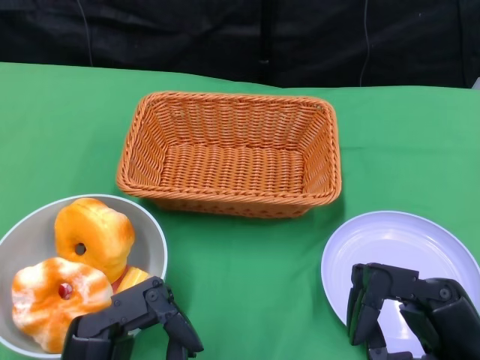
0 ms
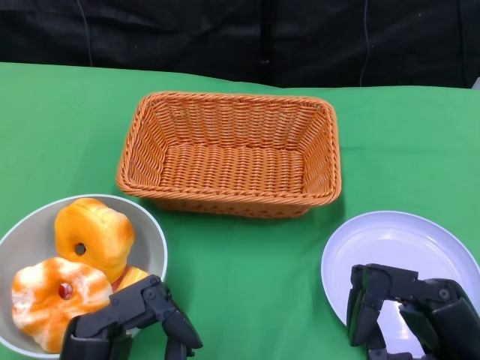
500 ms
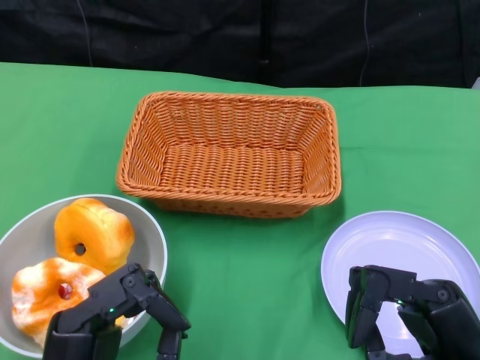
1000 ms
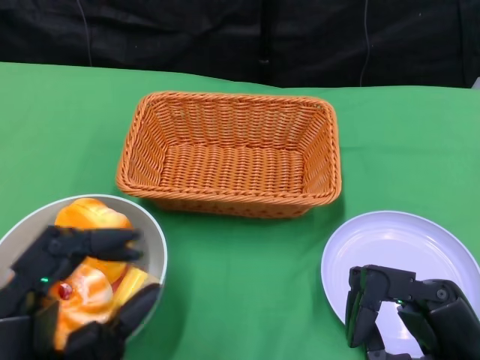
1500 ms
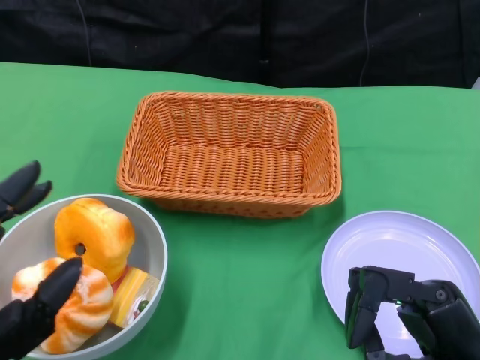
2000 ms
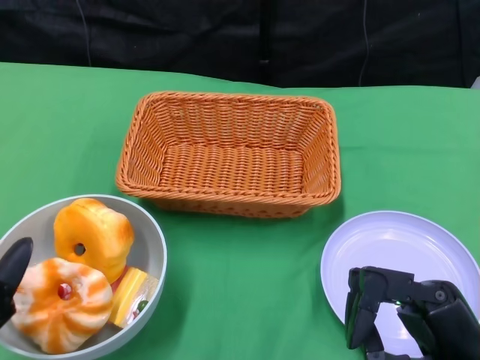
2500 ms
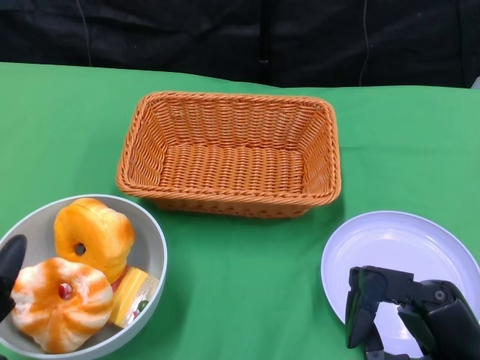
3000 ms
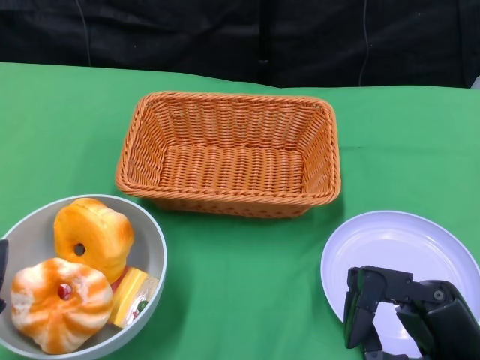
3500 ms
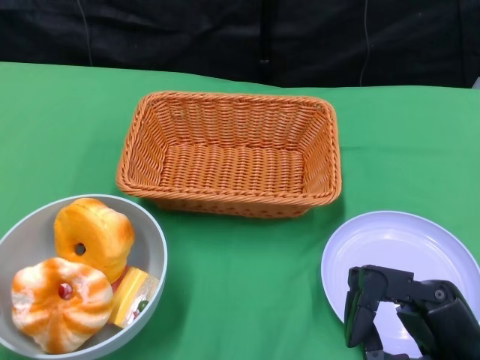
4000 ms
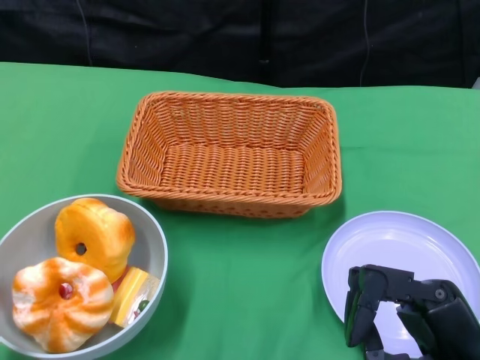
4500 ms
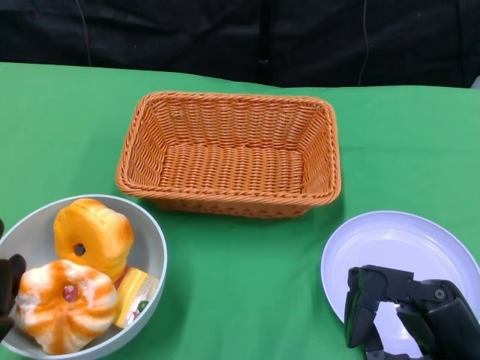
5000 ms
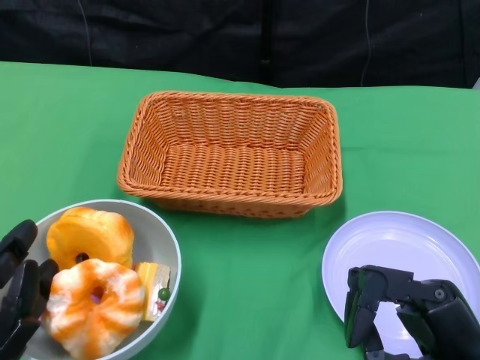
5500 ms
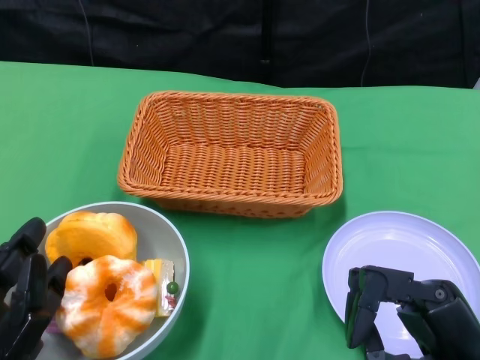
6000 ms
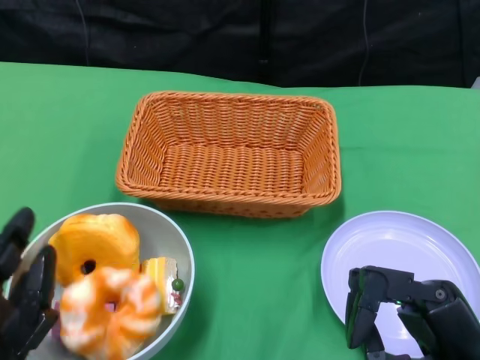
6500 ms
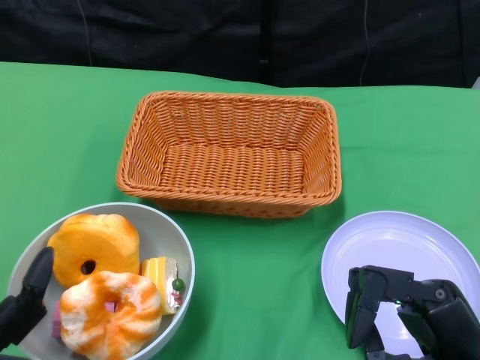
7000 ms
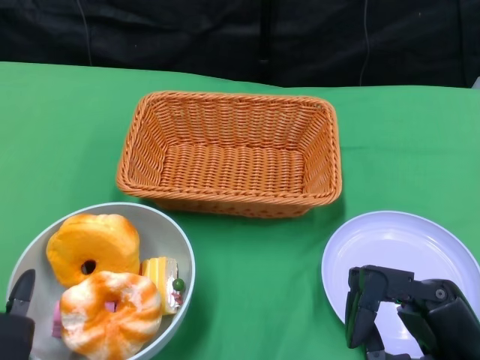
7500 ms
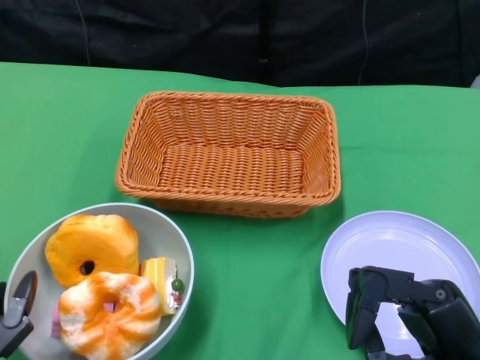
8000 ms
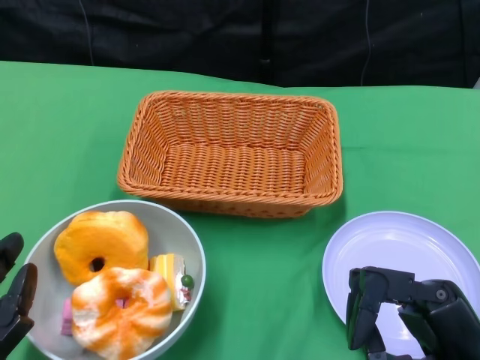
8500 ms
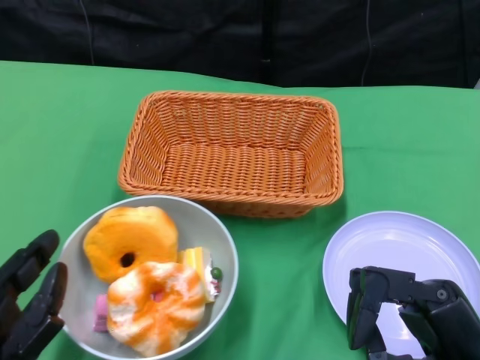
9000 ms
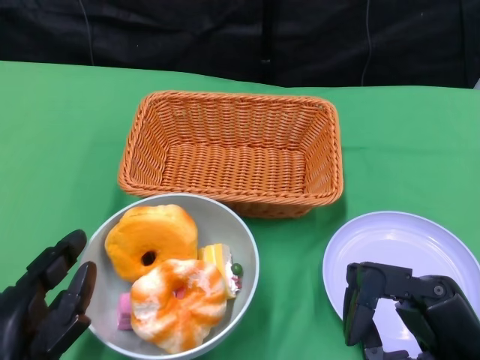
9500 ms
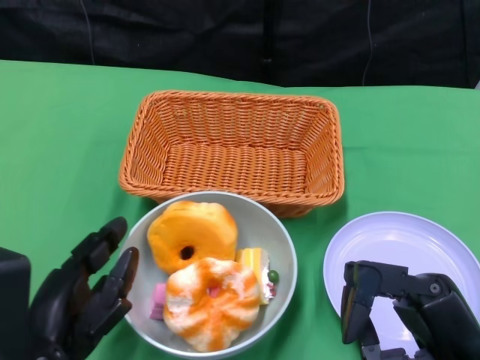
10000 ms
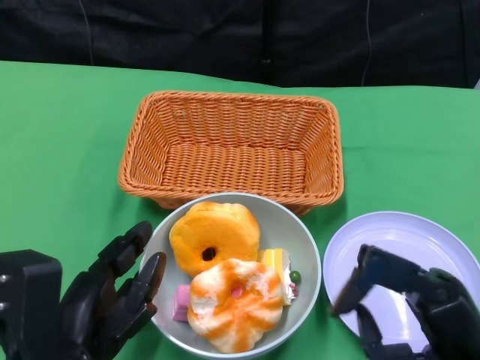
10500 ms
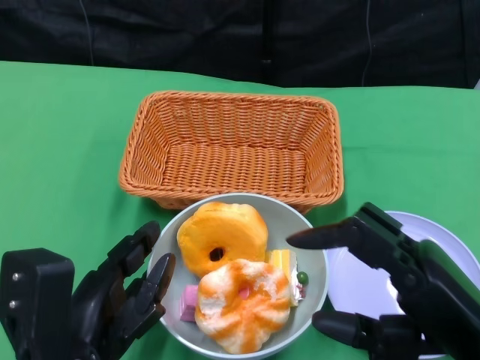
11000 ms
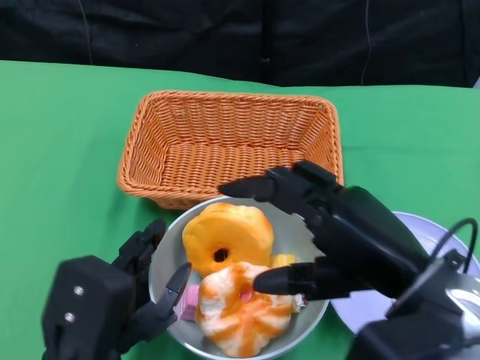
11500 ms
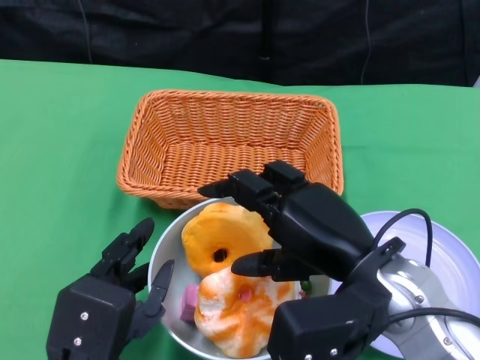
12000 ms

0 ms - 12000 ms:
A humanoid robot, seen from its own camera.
Step, 0 ms - 11000 ms: Push the bowl to the center of the table using the left gripper.
8000 ms - 10000 ms: The left hand goes approximately 5 cm to the right.
10000 ms - 12000 ms: The left hand changes place by some 5 cm, while the right hand goes roughly 10 cm forward, to the left and upward.

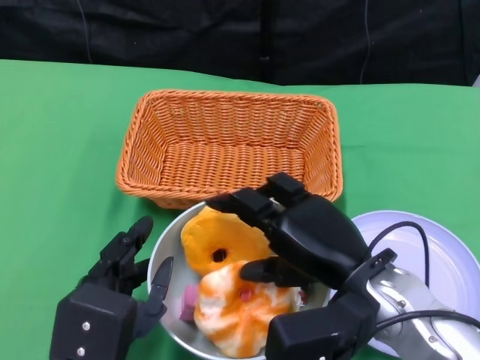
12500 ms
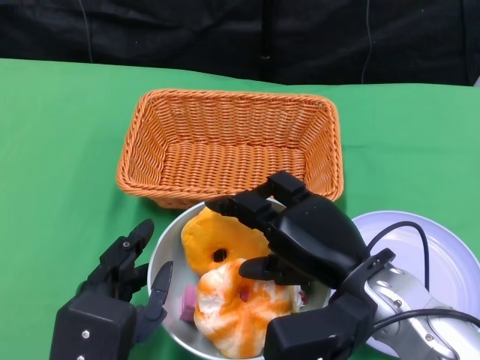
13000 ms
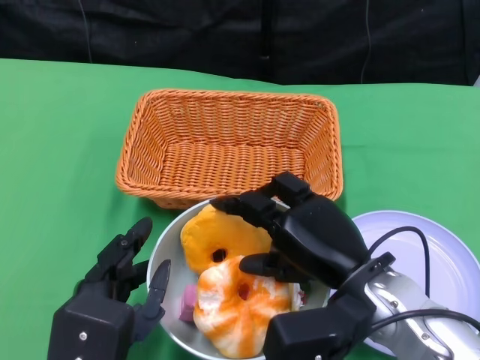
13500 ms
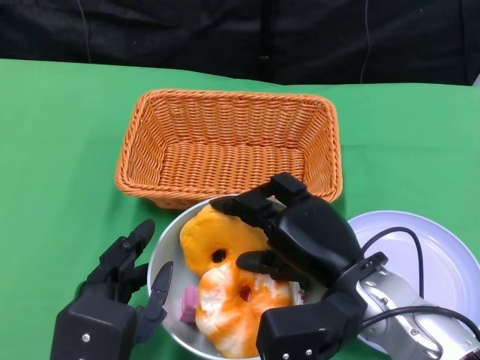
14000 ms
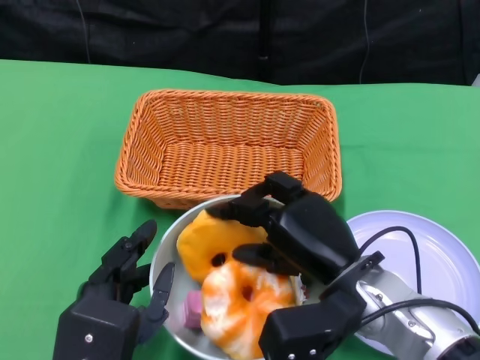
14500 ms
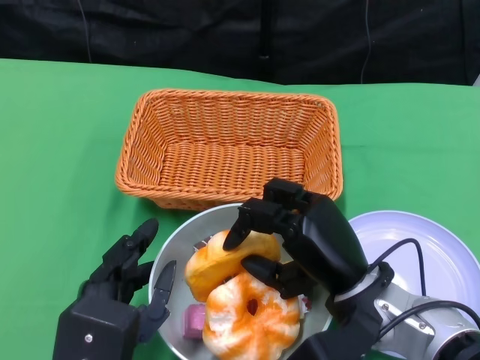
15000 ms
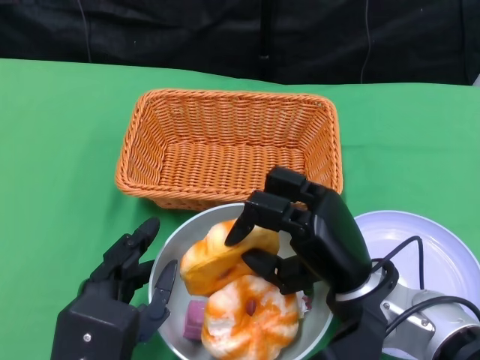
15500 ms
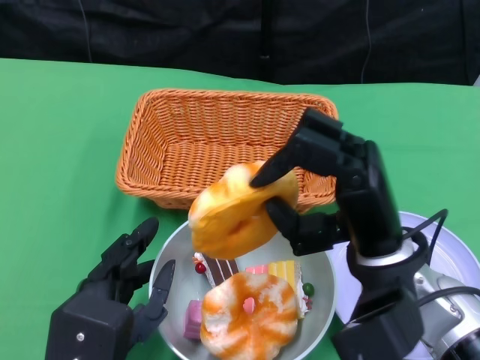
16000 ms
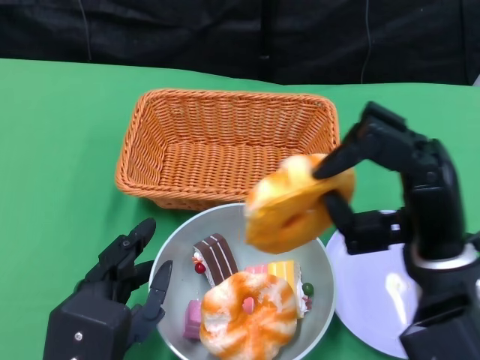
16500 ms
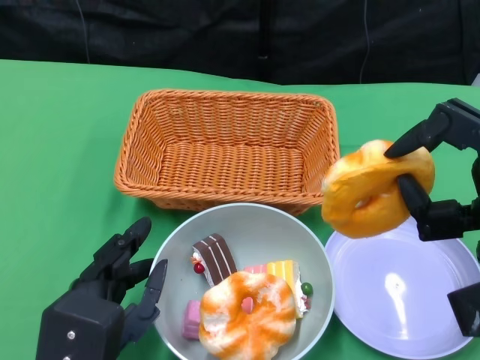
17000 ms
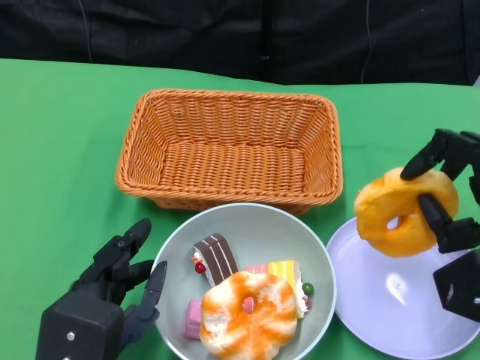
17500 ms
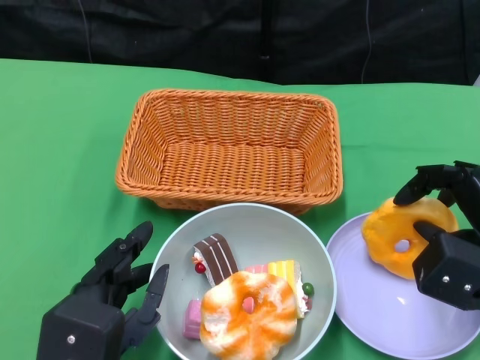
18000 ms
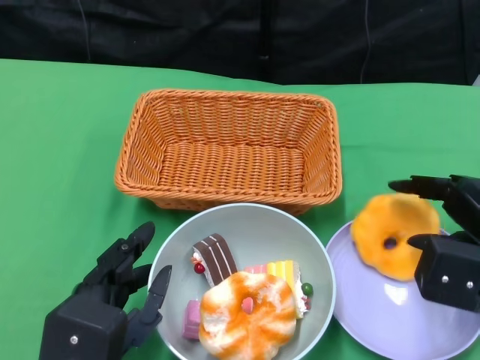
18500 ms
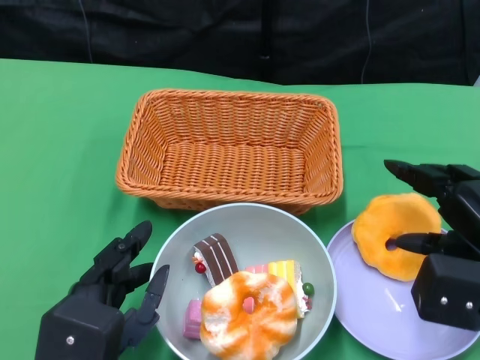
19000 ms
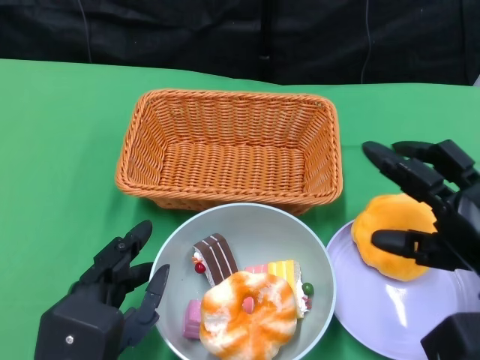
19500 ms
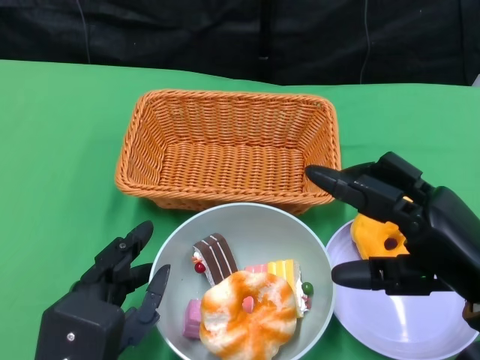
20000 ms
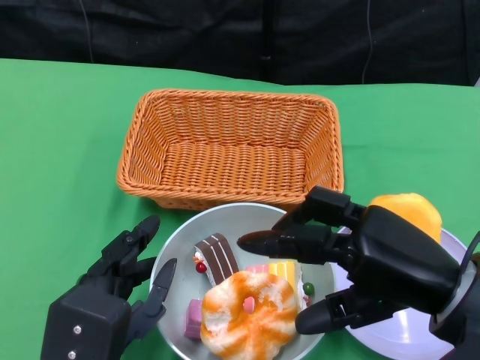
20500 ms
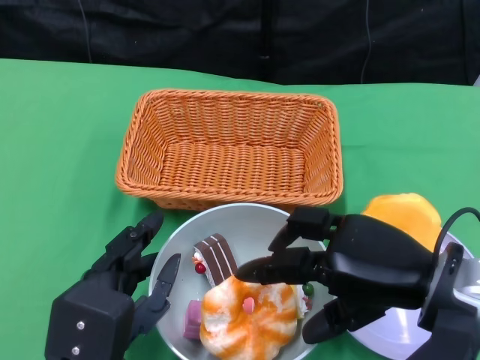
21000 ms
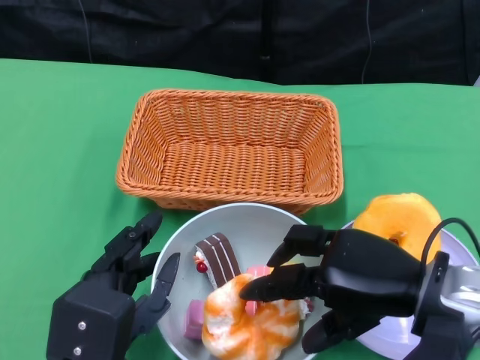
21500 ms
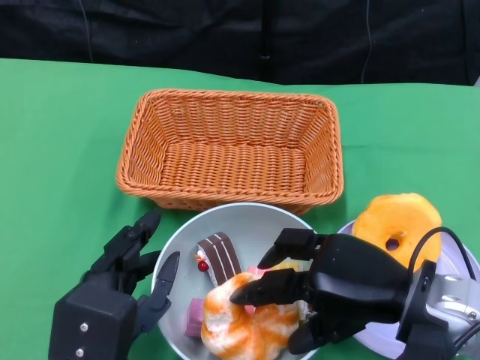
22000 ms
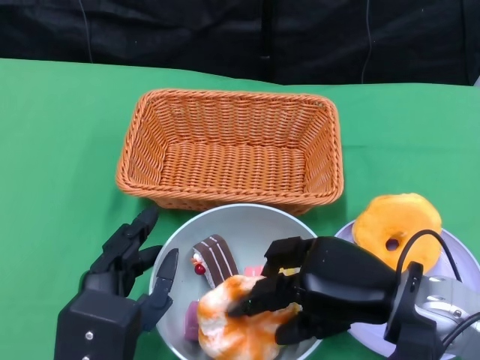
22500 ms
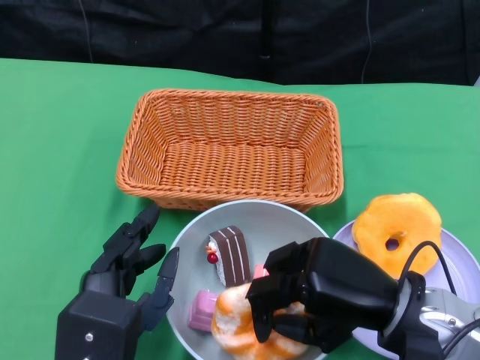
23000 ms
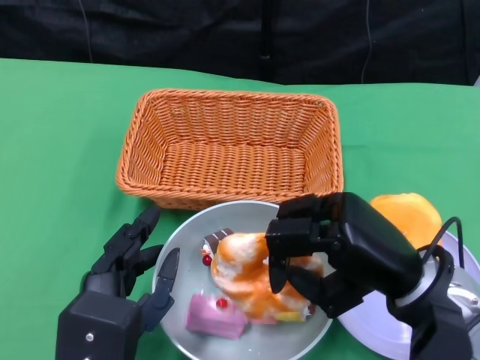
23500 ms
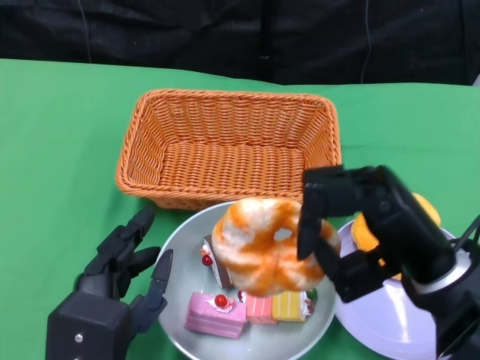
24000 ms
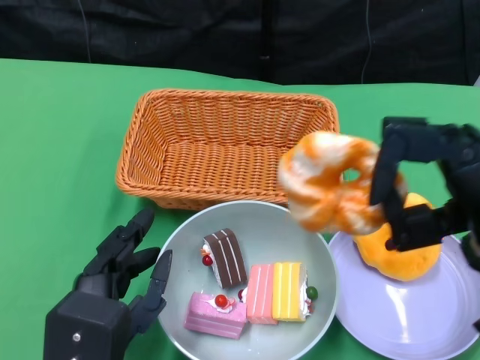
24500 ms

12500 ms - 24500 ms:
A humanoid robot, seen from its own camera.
12500 ms - 14500 ms: The hands move only a little.
14500 ms - 16500 ms: The right hand is displaced to the right by about 5 cm.
16500 ms - 18500 ms: The right hand travels to the right by some 10 cm.
18500 ms - 20500 ms: The right hand shifts approximately 5 cm to the left.
20500 ms - 22500 ms: The right hand ends up some 5 cm from where it was.
22500 ms - 24500 ms: The right hand travels upward and to the right by roughly 10 cm.

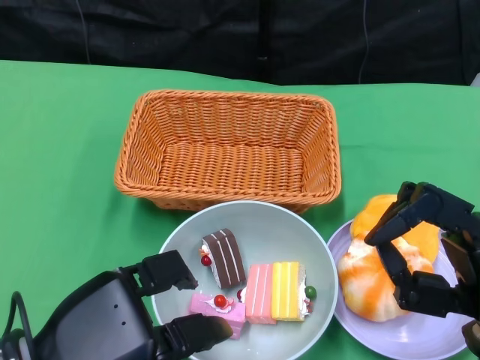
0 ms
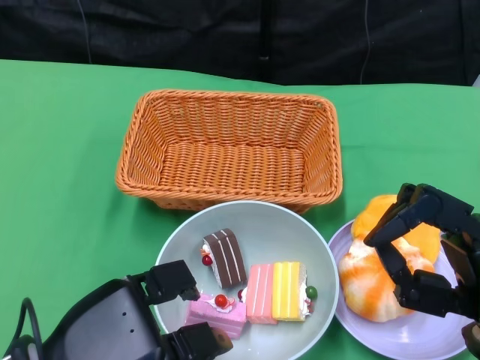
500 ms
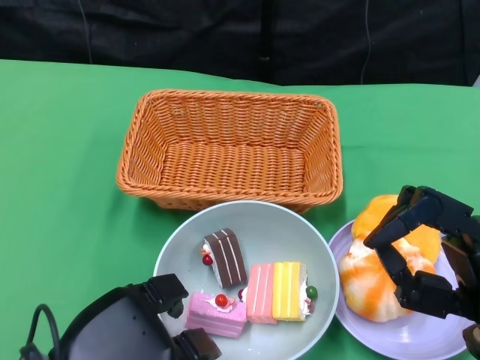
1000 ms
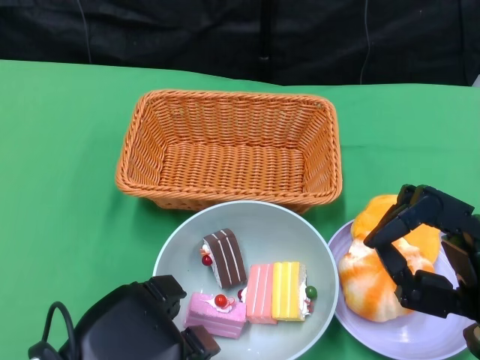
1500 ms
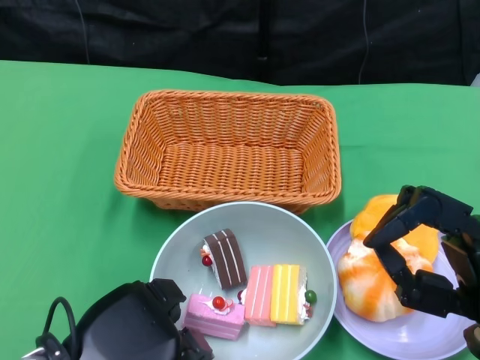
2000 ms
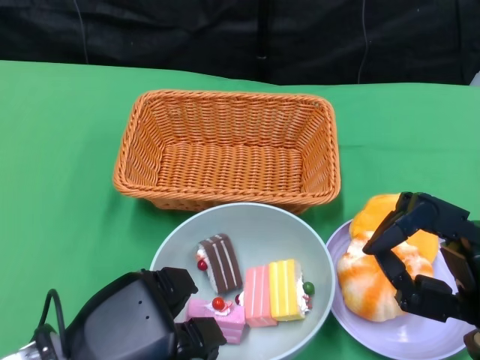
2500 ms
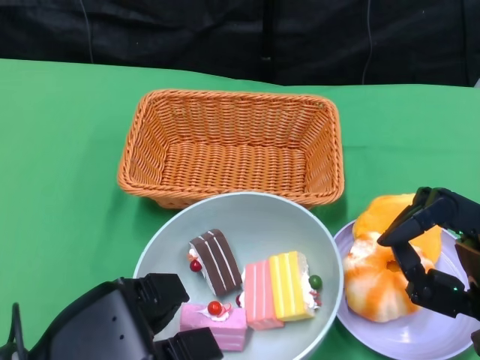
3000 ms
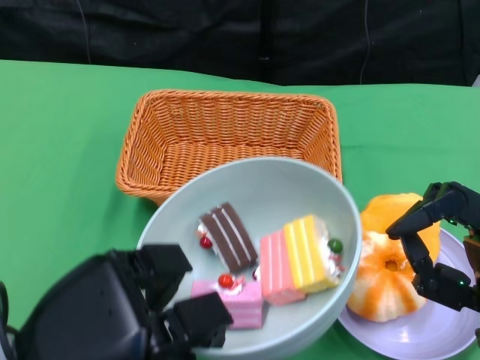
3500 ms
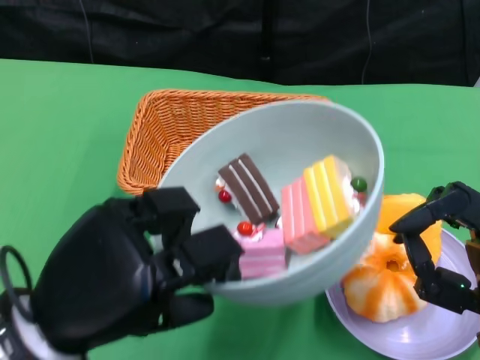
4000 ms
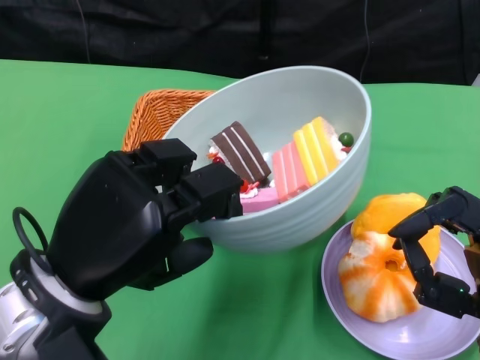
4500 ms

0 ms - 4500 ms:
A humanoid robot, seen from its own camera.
Step, 0 ms - 2000 ms: Grasp the bowl with the left gripper.
2000 ms - 4500 ms: The left hand moves upward, about 10 cm.
